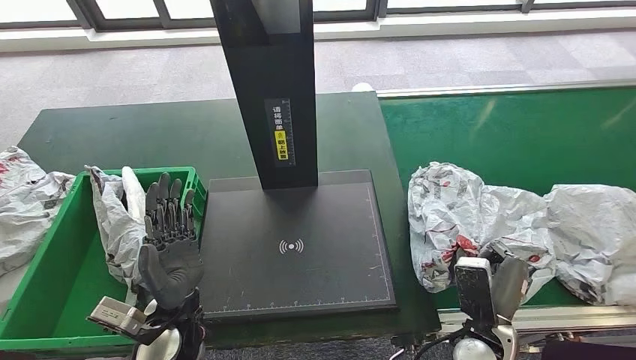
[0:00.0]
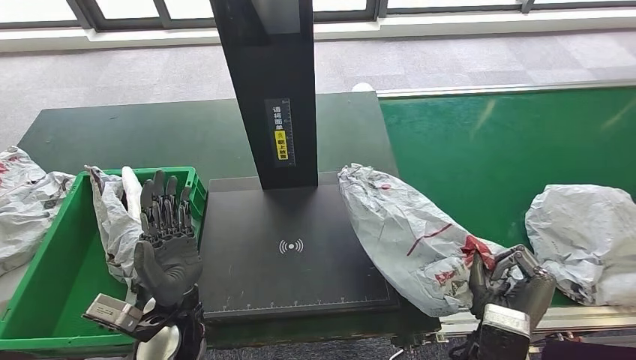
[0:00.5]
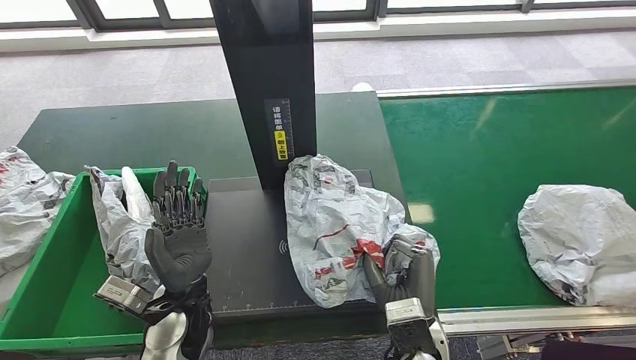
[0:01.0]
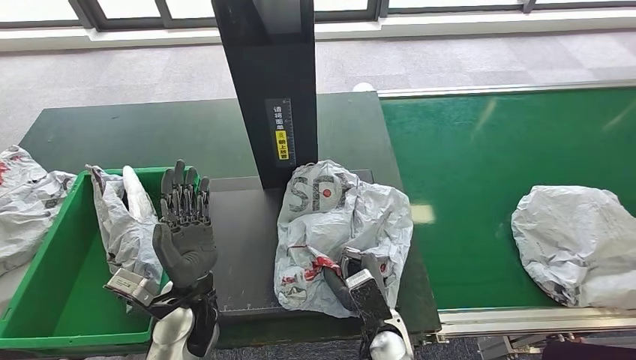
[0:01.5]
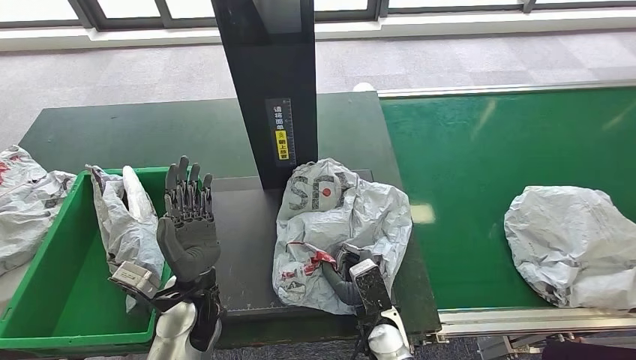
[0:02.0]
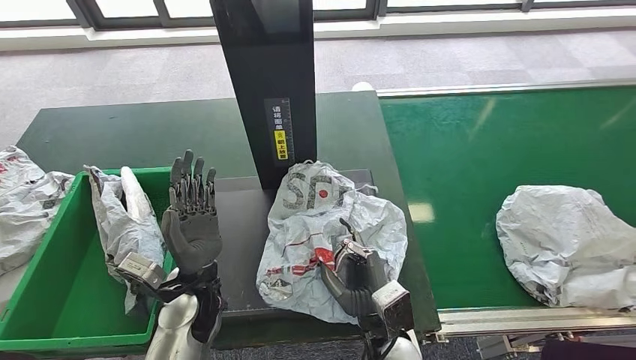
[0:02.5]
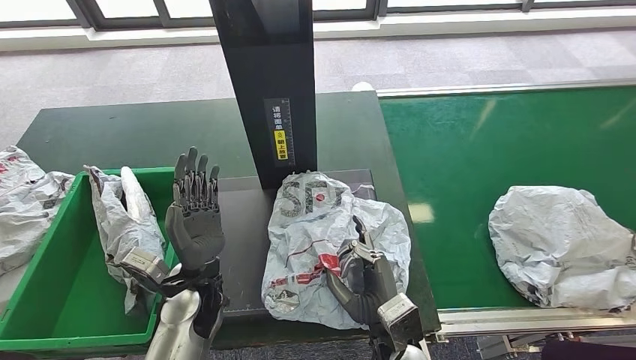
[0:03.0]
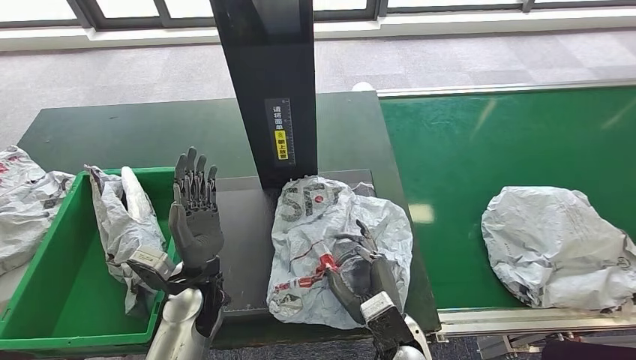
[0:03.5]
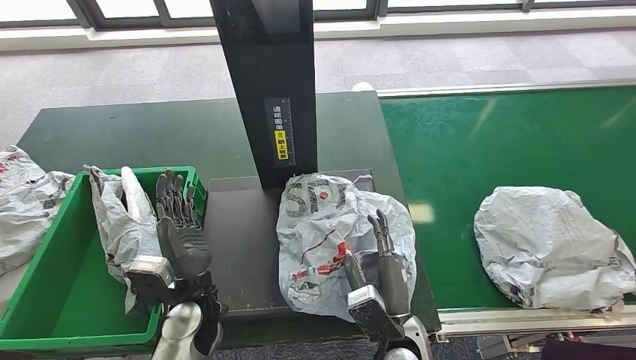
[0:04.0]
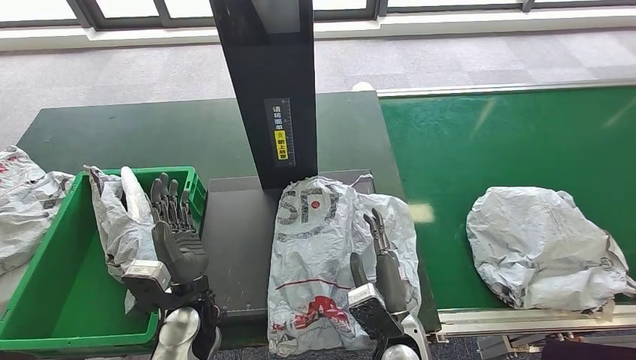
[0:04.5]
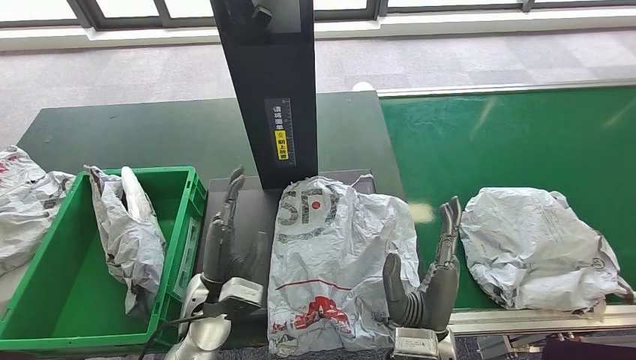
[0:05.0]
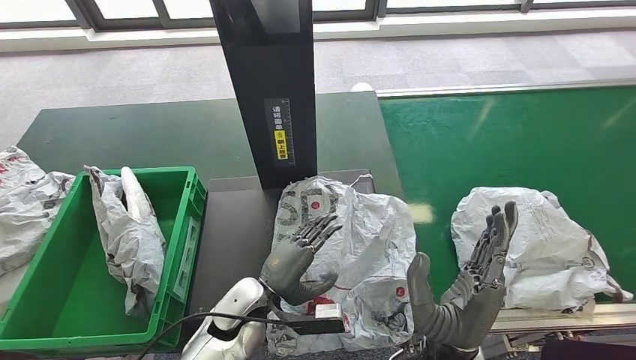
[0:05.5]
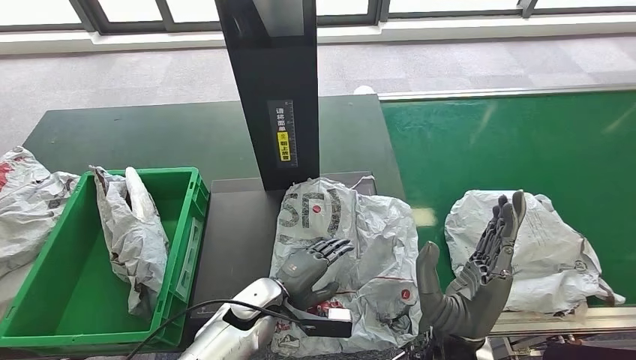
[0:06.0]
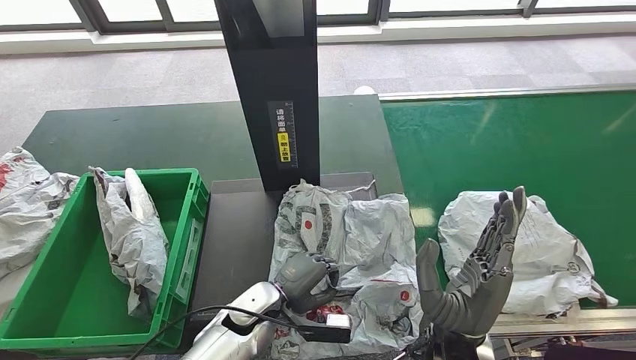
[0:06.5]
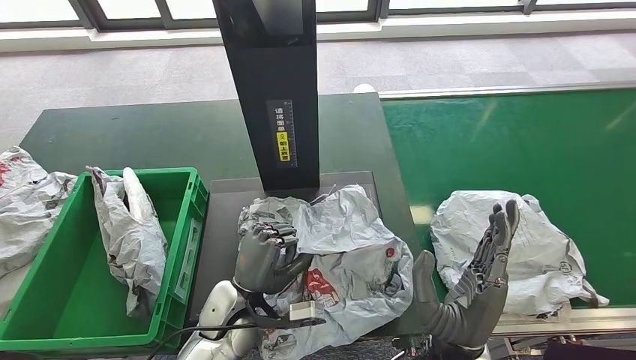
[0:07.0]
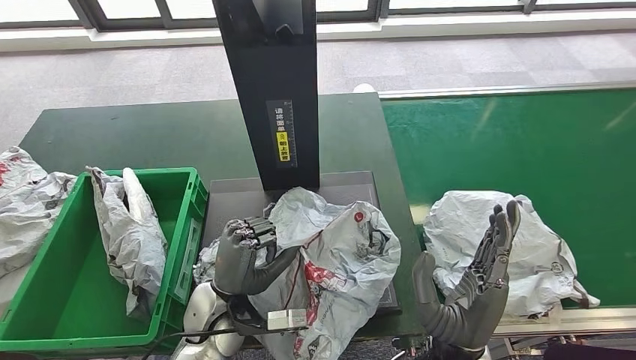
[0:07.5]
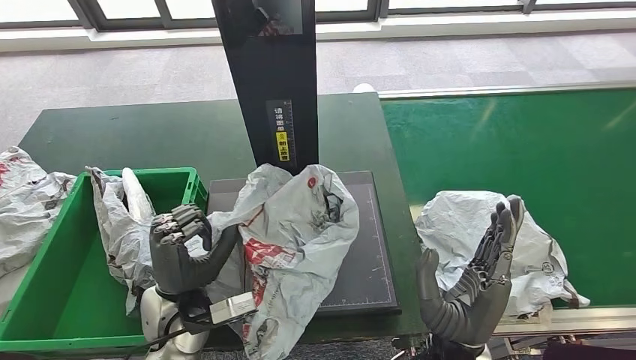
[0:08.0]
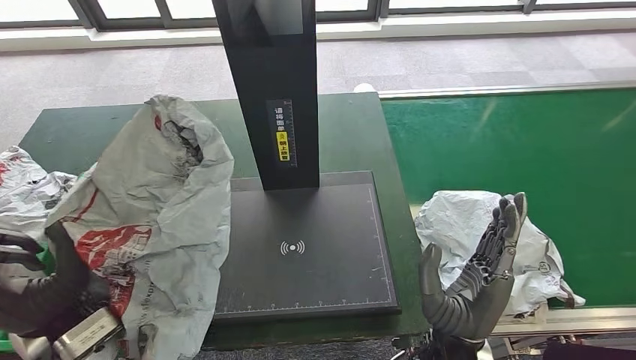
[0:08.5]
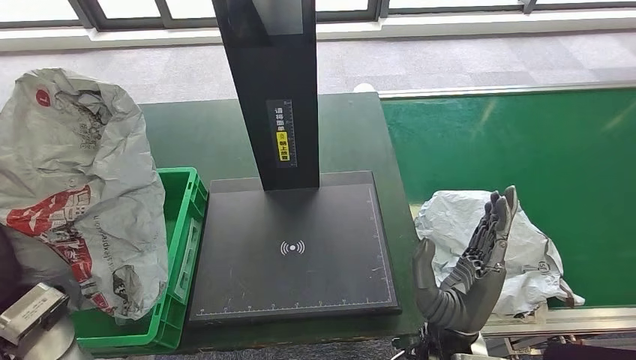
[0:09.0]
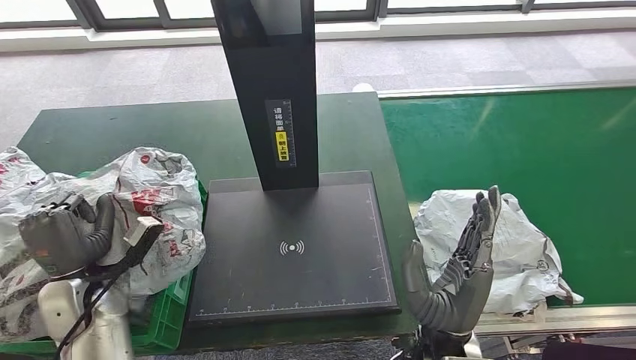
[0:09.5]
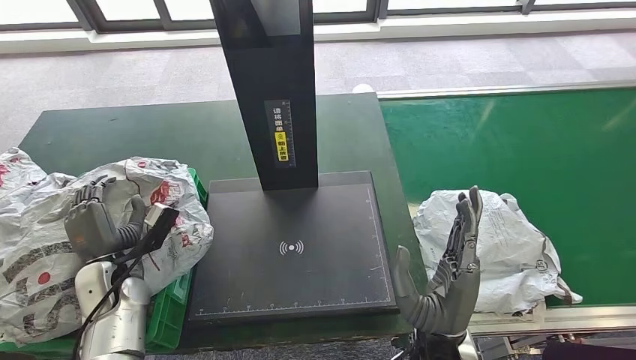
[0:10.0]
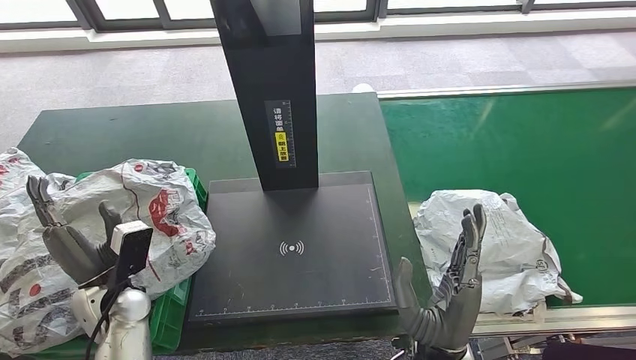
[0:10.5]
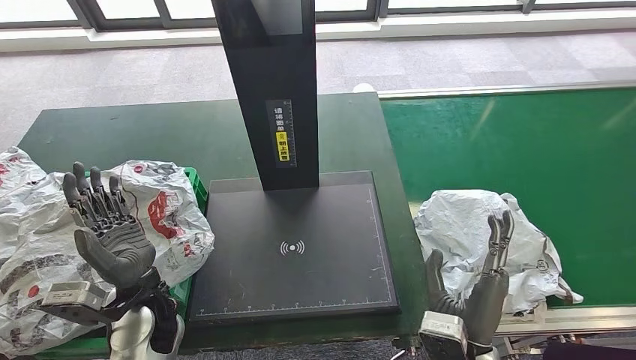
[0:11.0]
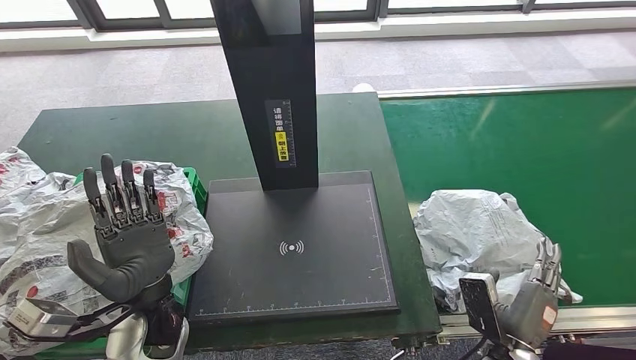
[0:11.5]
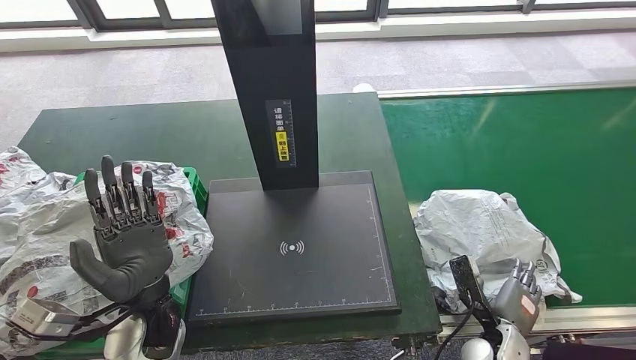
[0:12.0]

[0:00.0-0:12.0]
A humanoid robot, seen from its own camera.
Step, 0:01.0 to 0:03.0: Place the parcel onto the inbound machine.
Step, 0:03.5 to 0:08.0: Pick up the parcel from the inbound machine.
Step, 0:08.5 to 0:11.0: Place the parcel into the delivery box.
0:02.0 to 0:04.0: The right hand moves roughly 5 cm.
0:10.0 to 0:12.0: The right hand is displaced to the right and downward by approximately 20 cm; the left hand shifts some 15 cm to the right, upward and backward.

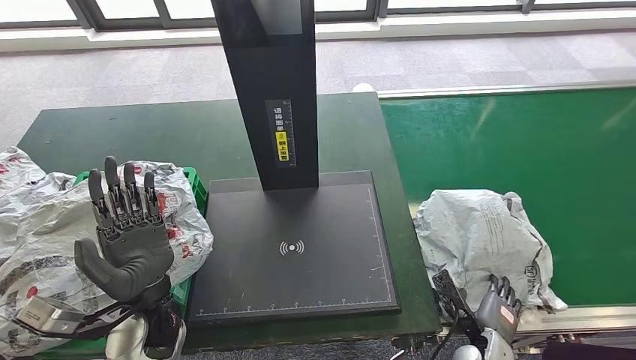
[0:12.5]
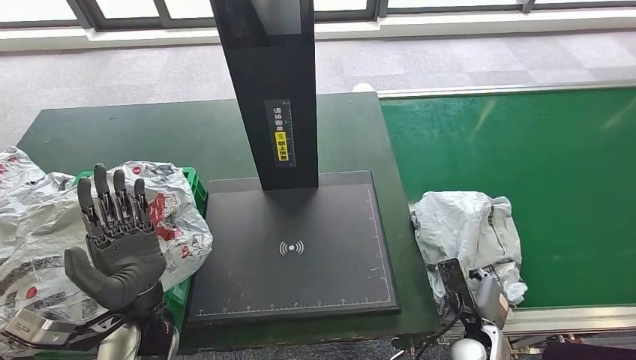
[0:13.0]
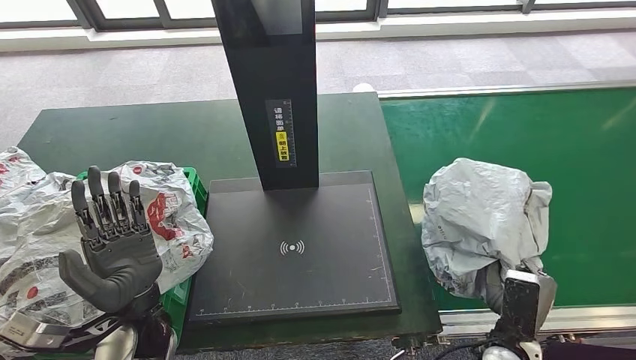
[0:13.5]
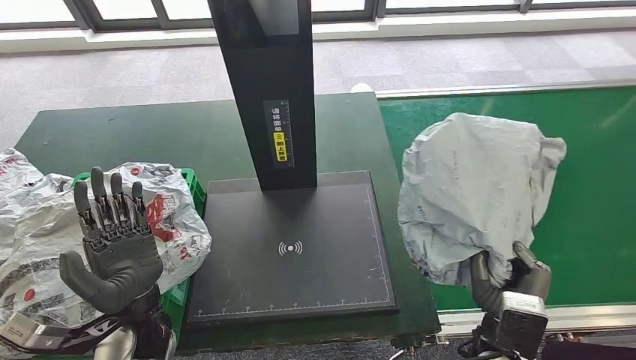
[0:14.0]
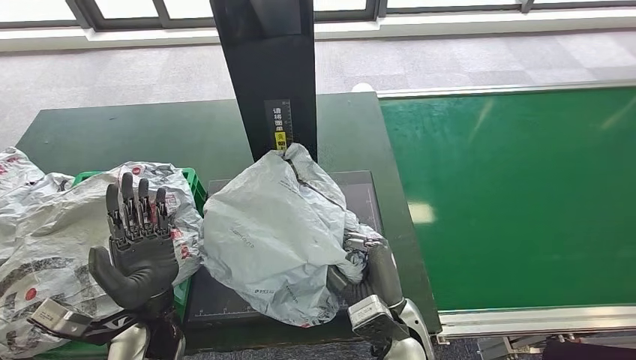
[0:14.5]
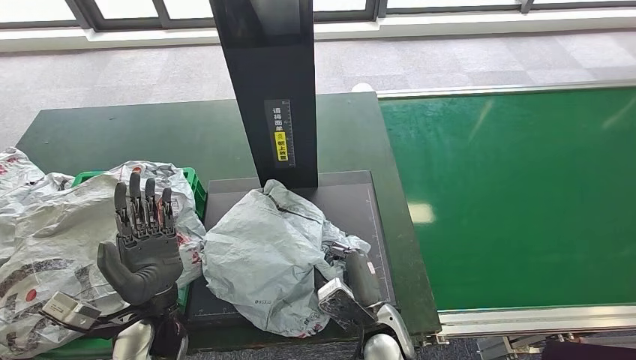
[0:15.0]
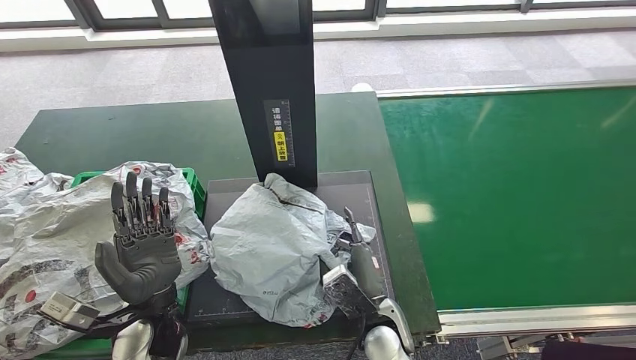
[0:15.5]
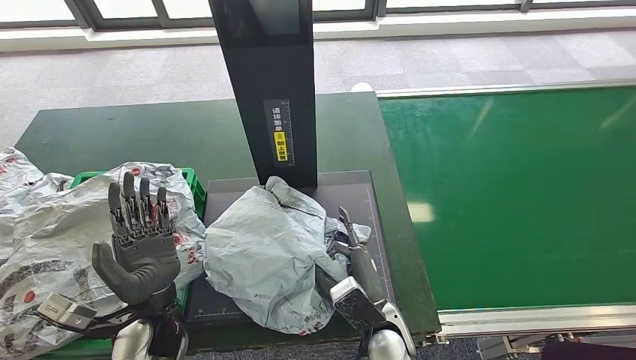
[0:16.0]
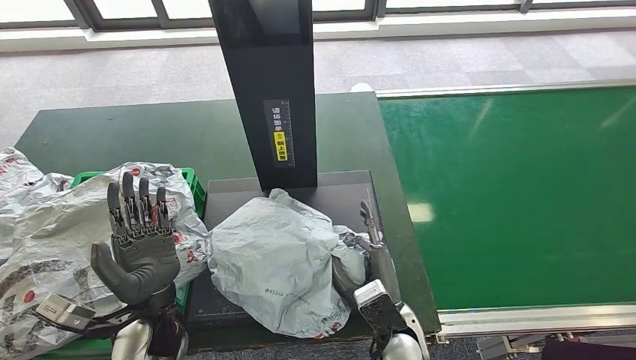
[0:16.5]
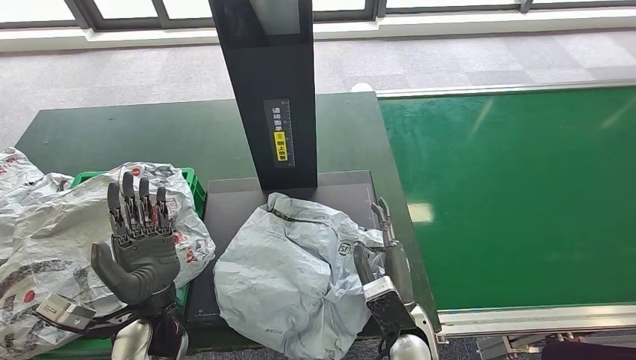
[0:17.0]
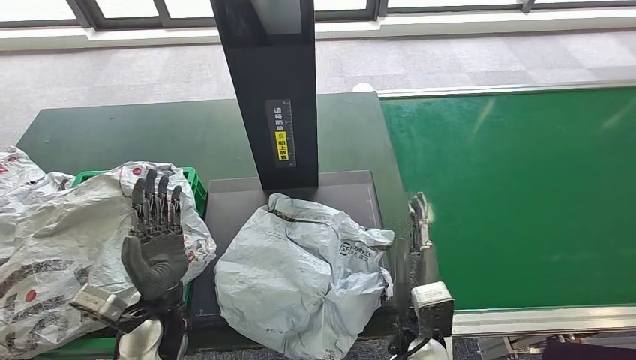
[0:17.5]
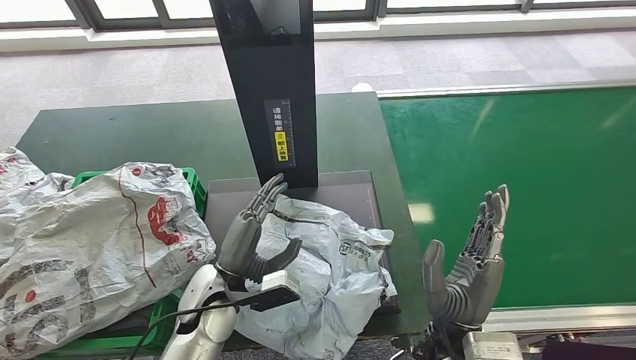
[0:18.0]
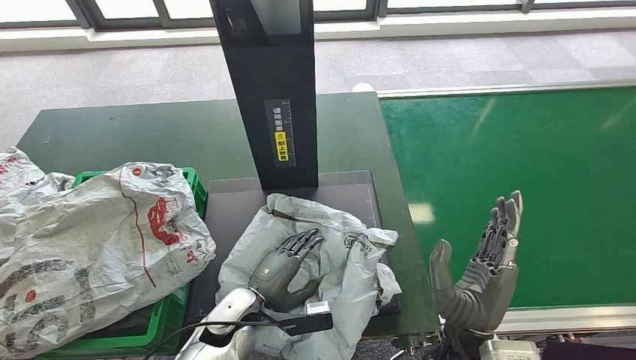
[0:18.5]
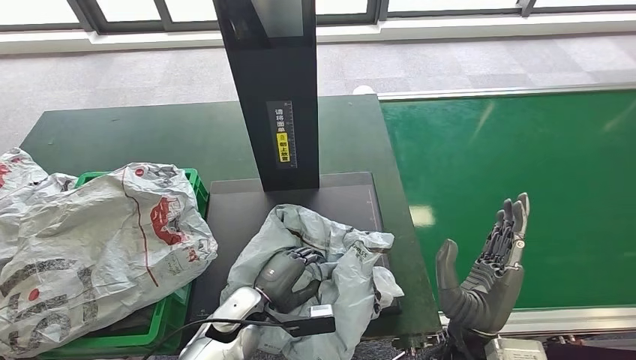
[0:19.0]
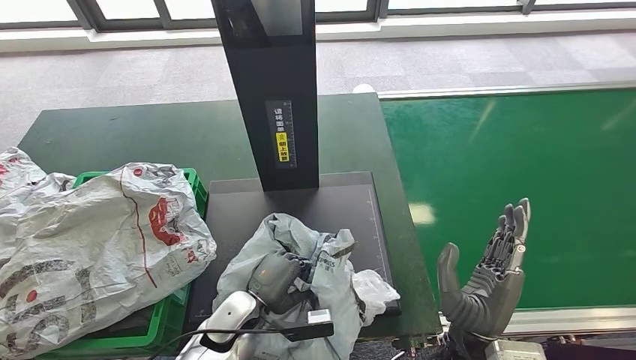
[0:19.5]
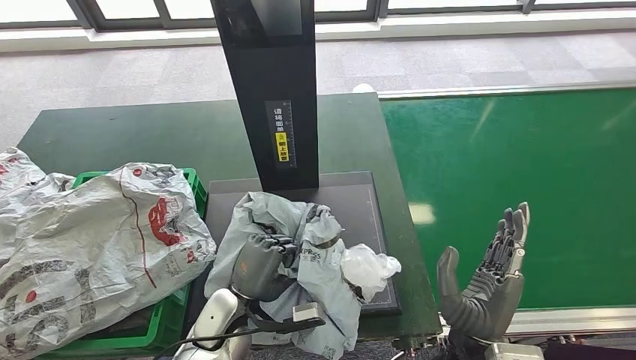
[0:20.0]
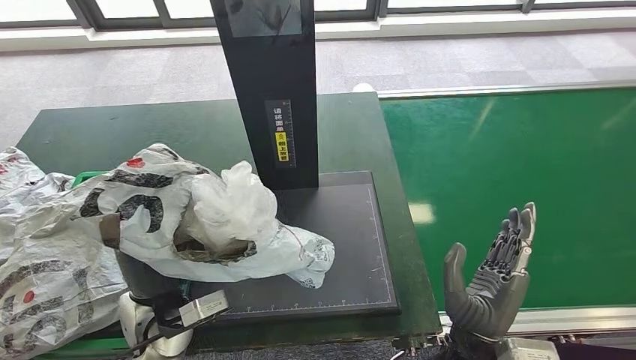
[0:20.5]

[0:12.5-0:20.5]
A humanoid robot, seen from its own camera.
Step, 0:12.5 to 0:14.5: Pick up the parcel from the conveyor belt.
Step, 0:15.0 to 0:16.5: Place the parcel onto the inbound machine.
Step, 0:17.0 to 0:20.0: Pick up the parcel from the inbound machine.
0:14.5 to 0:16.5: The hands move only a little.
